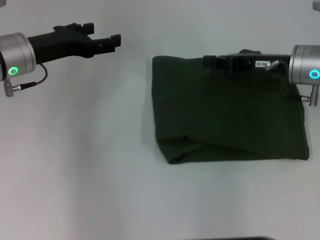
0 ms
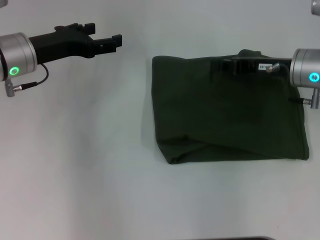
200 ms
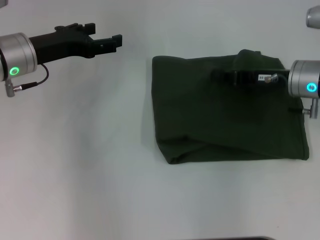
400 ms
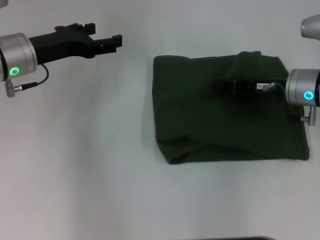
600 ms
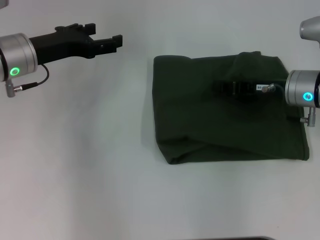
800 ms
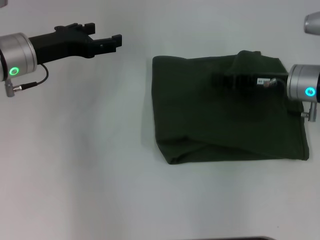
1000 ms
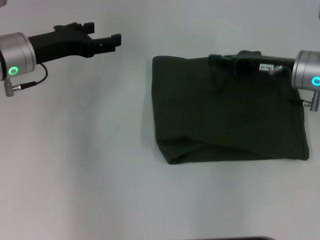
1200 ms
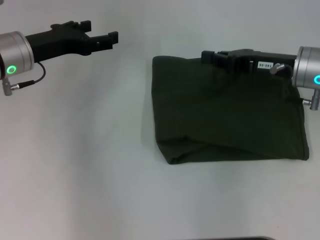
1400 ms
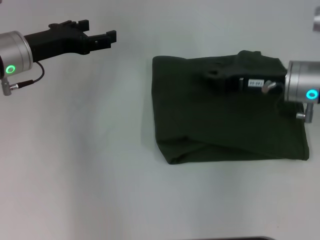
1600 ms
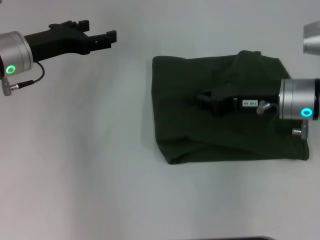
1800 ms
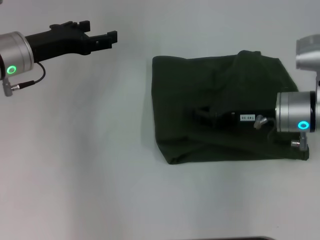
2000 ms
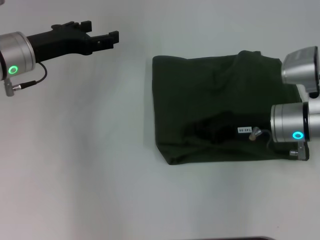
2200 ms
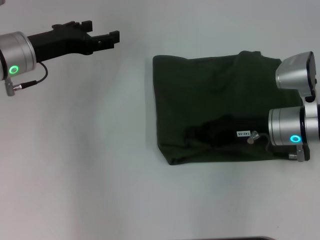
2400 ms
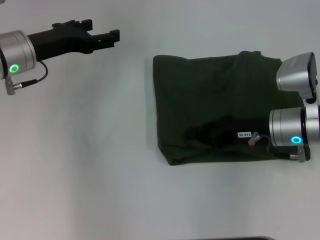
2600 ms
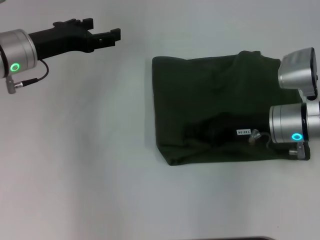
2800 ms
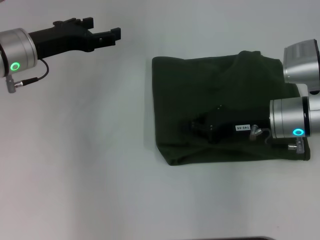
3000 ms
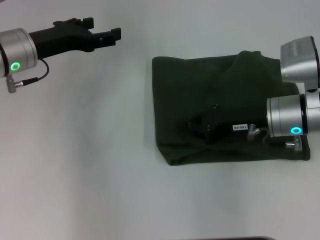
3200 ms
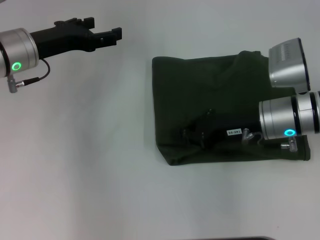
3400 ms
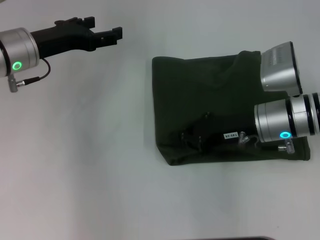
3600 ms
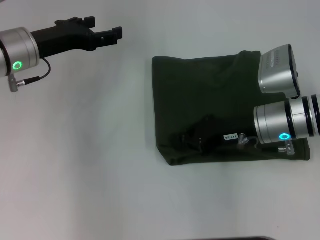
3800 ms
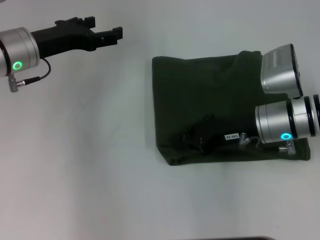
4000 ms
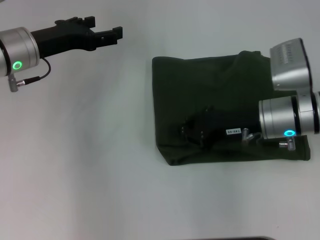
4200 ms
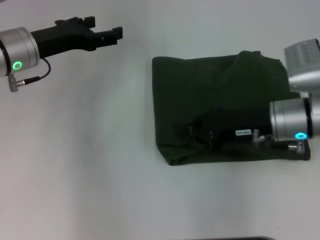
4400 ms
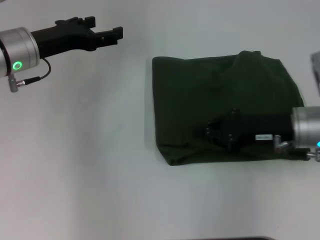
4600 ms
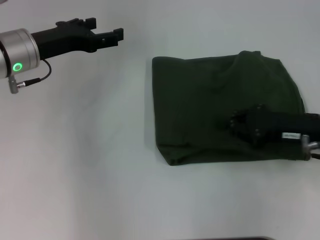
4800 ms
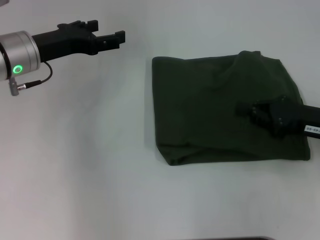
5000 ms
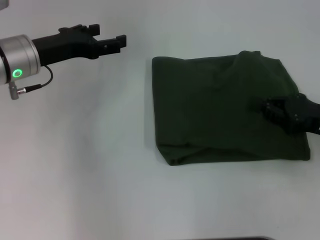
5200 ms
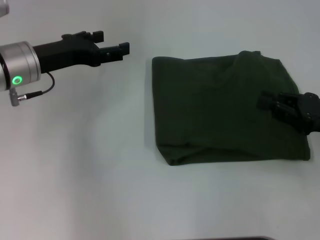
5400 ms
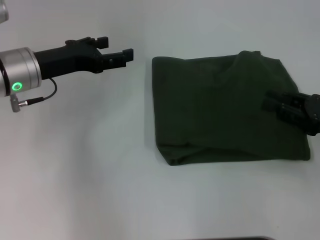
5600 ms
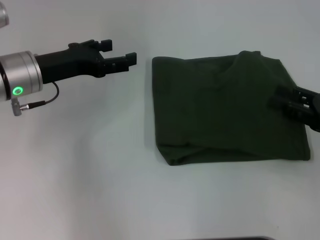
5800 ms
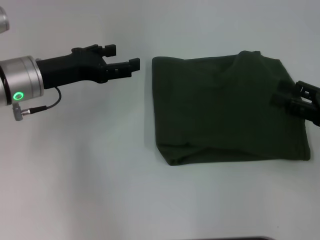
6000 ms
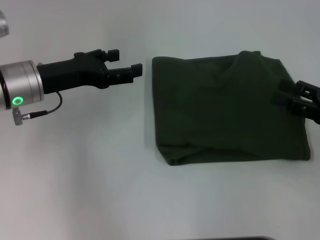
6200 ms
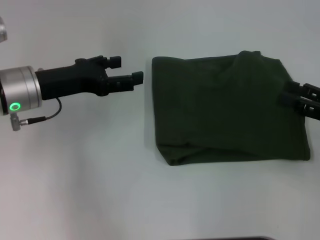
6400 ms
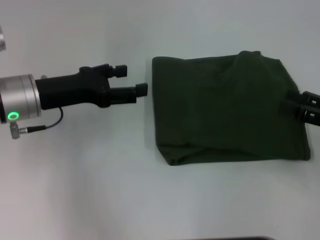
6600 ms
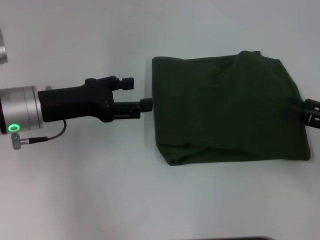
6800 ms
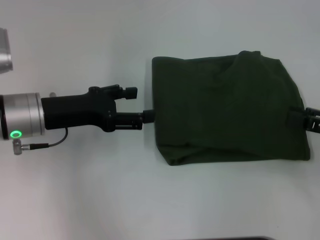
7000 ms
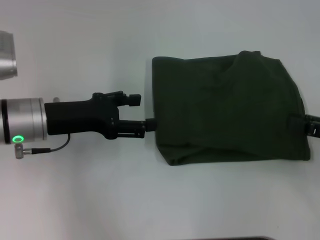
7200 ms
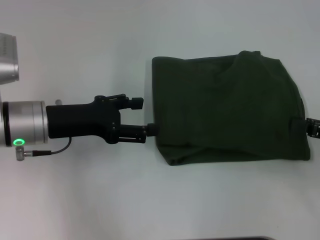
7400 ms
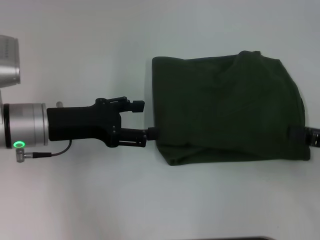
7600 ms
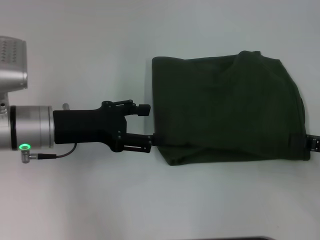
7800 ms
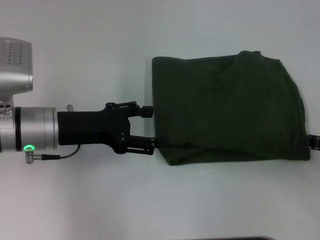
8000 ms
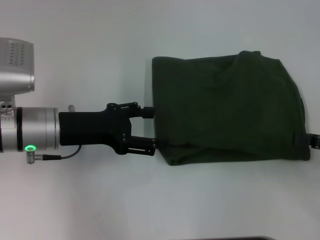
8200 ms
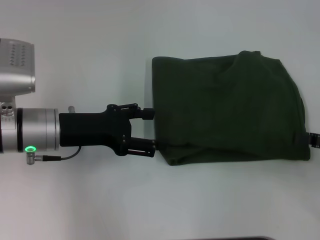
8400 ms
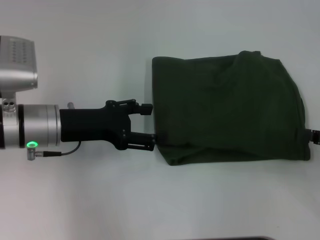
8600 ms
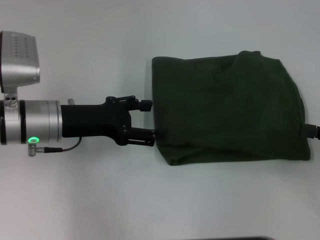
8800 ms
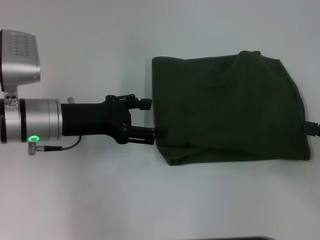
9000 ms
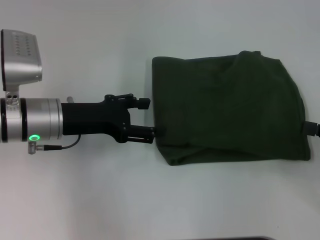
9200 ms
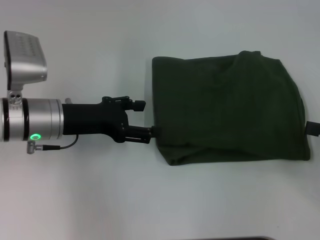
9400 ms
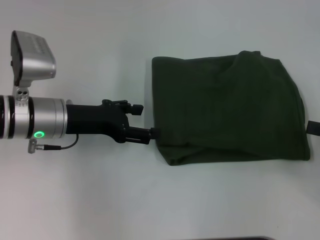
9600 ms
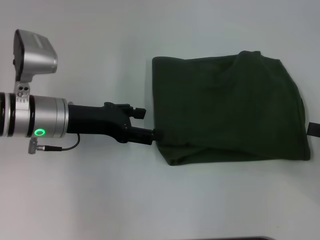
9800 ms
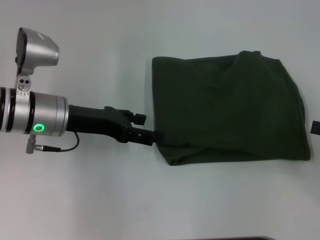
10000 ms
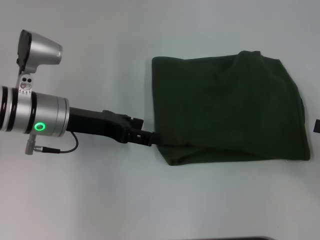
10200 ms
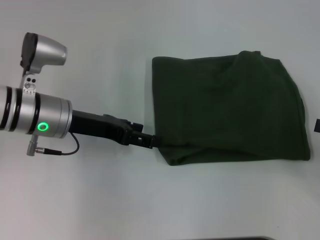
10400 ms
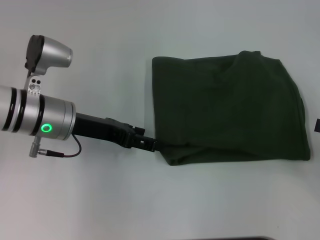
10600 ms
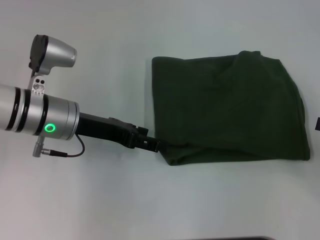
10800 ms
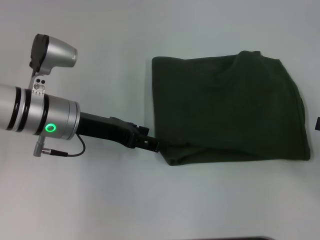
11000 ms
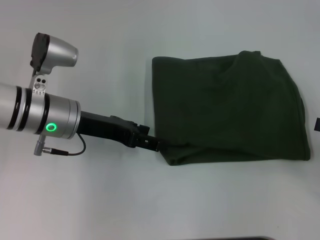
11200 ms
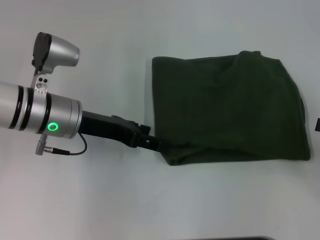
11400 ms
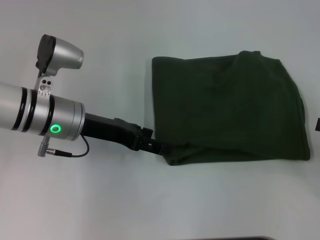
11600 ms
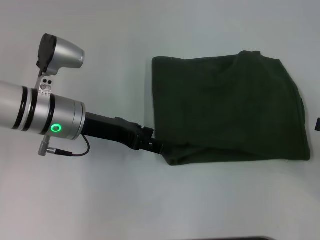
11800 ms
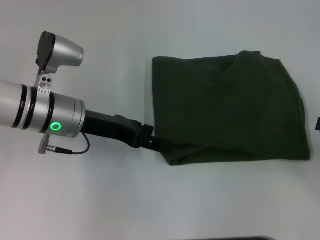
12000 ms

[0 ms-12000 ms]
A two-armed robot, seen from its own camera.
0 ms to 1600 ms: The grippers move only a little.
3000 ms to 4400 ms: There are only small adjustments of the grippers.
4400 ms to 6000 ms: The right gripper goes roughly 15 cm to the right and backward, and opens up.
6000 ms to 7600 ms: The left gripper changes place by some 5 cm.
7600 ms to 9000 ms: The grippers stay close to where they were, moving slightly.
10400 ms to 12000 ms: There are only small adjustments of the grippers.

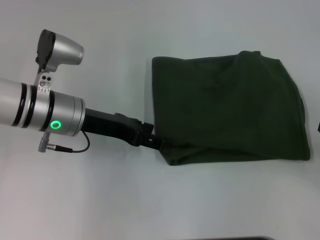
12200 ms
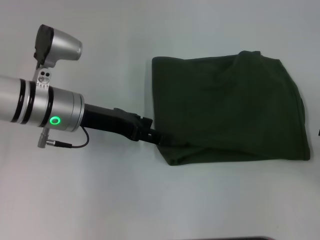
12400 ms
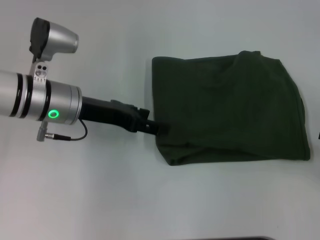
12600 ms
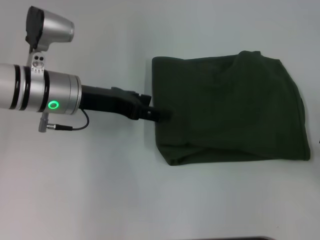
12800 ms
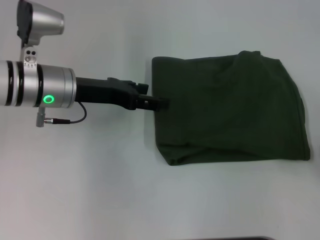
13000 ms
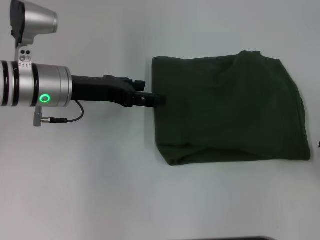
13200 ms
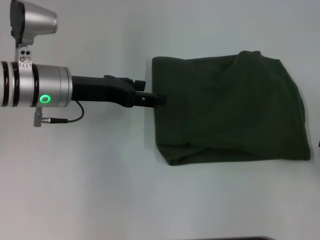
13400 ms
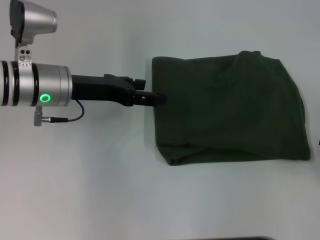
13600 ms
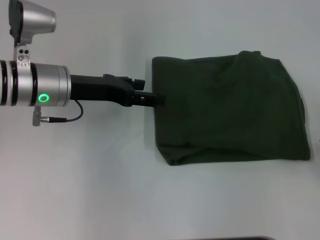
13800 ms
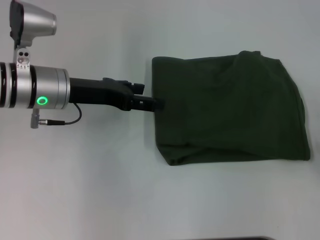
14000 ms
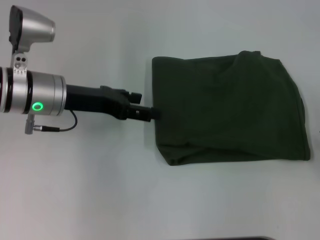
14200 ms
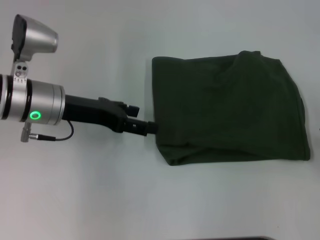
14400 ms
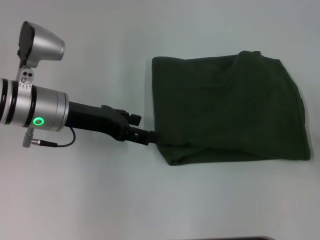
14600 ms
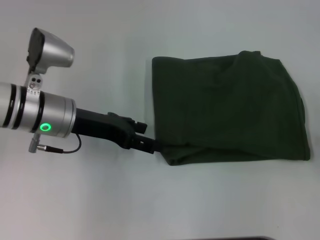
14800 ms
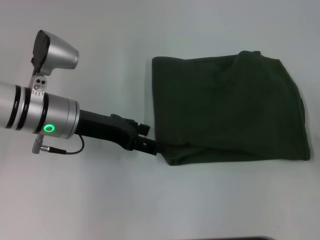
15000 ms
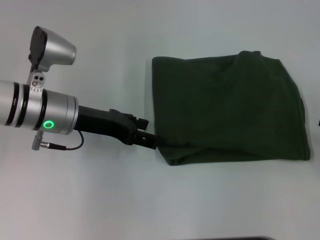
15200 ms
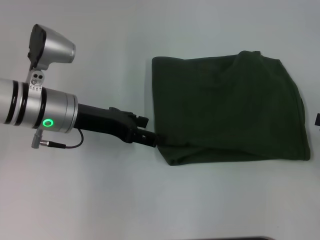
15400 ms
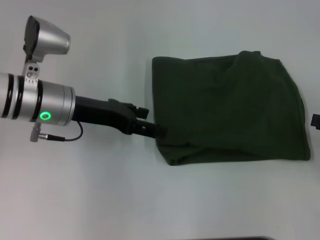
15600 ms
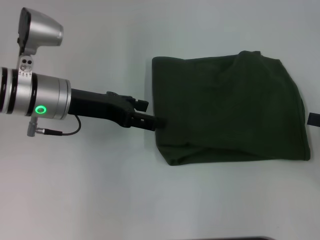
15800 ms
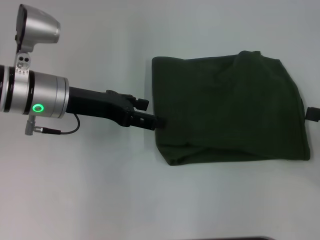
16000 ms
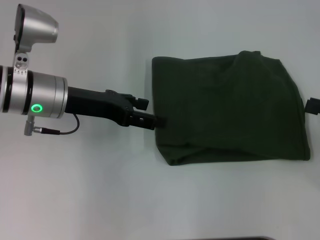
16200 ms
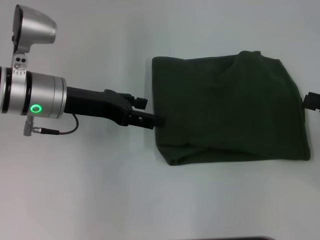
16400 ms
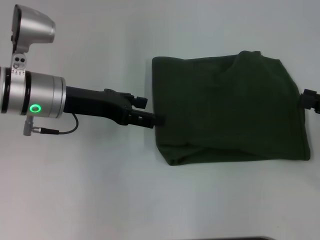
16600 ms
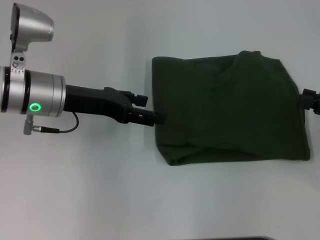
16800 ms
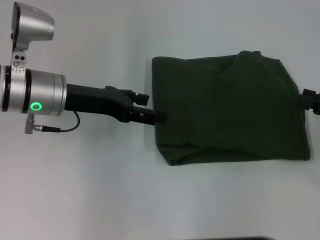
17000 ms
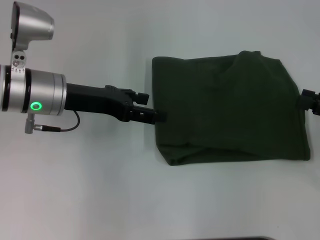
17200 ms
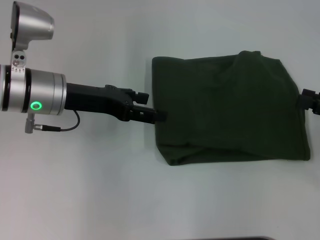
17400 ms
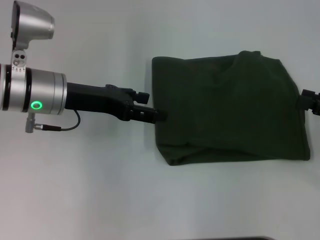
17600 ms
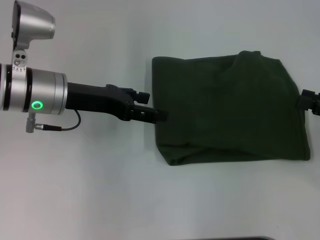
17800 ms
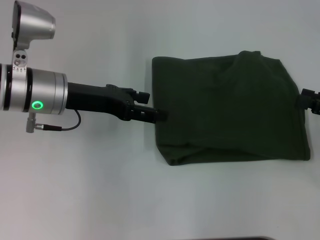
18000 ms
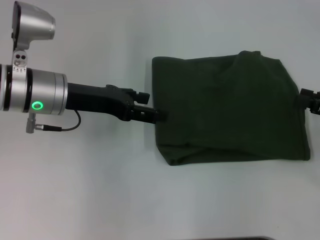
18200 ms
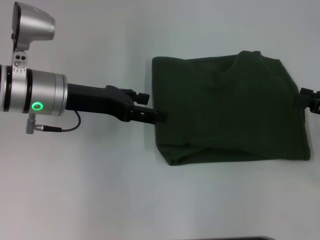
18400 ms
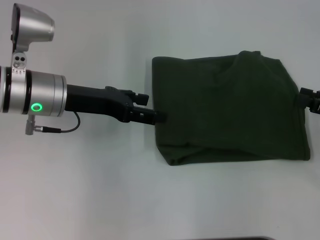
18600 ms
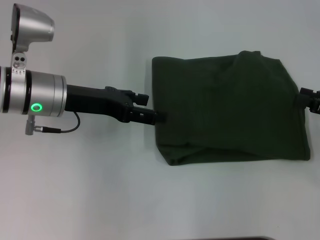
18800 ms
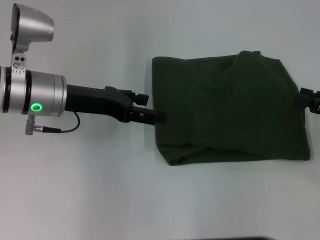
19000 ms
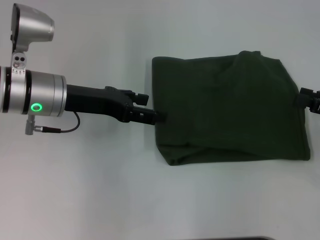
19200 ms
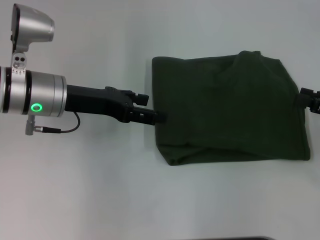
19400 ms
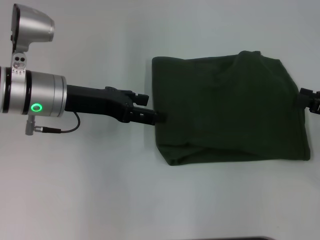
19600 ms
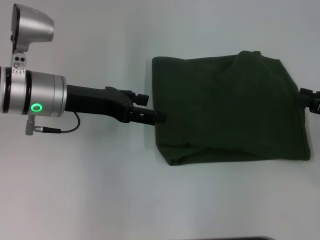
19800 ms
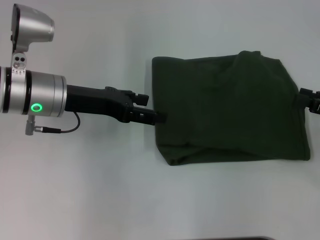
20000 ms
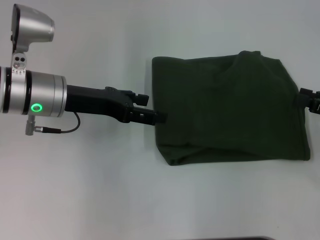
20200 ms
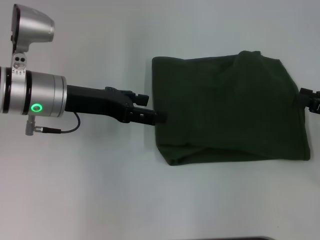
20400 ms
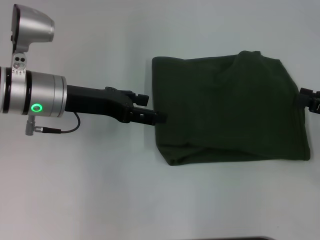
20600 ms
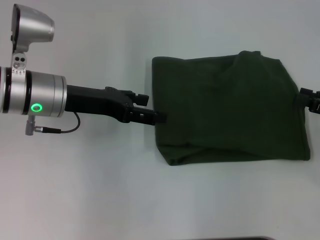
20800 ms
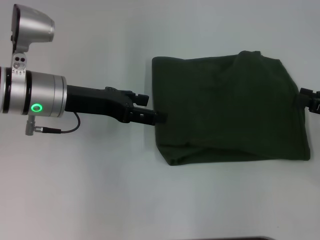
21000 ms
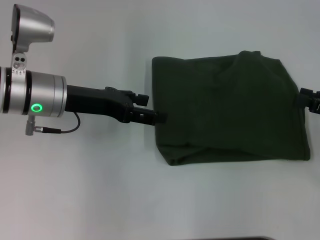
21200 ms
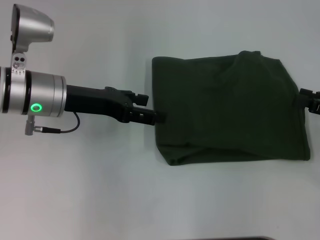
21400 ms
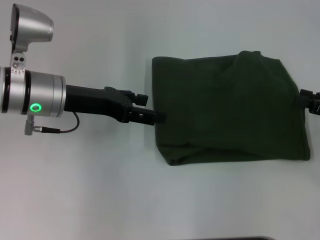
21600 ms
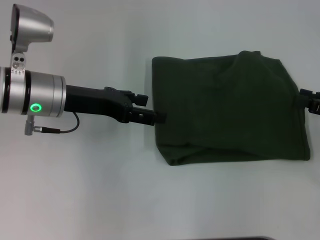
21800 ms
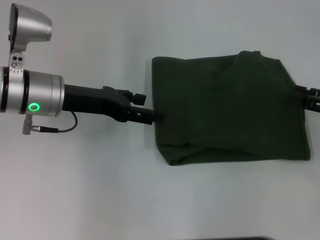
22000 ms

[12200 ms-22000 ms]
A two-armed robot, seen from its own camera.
12200 ms to 15000 ms: There are only small adjustments of the grippers.
16400 ms to 20600 ms: Both grippers stay about where they are.
20600 ms to 22000 ms: The two grippers keep their place.

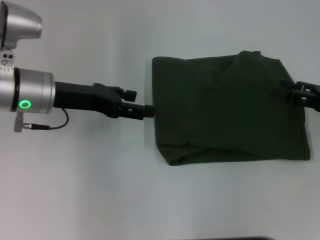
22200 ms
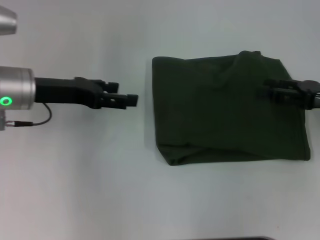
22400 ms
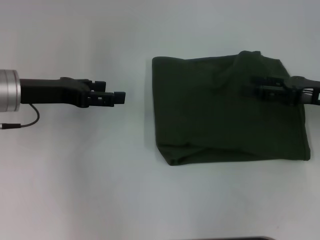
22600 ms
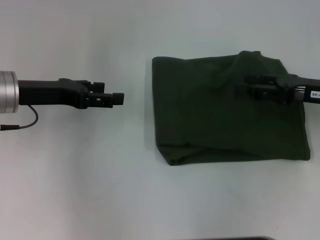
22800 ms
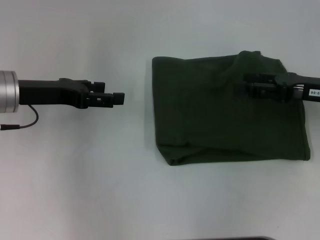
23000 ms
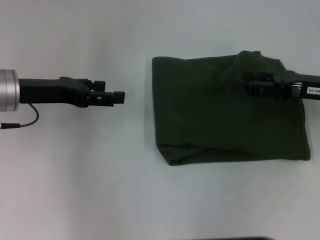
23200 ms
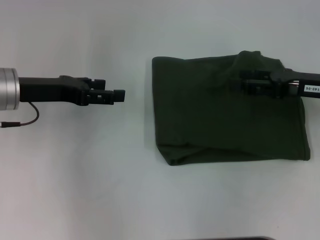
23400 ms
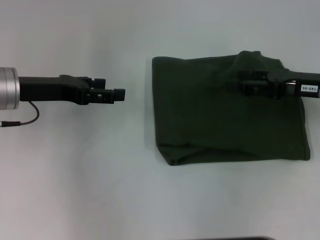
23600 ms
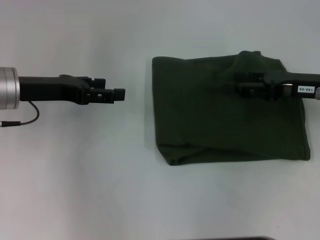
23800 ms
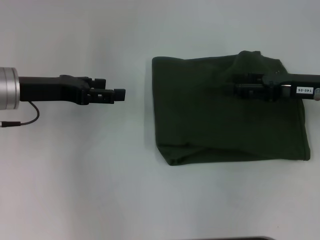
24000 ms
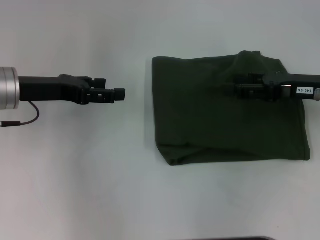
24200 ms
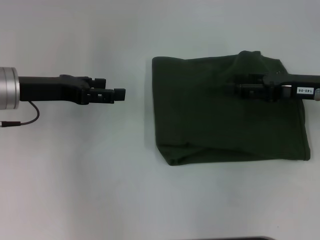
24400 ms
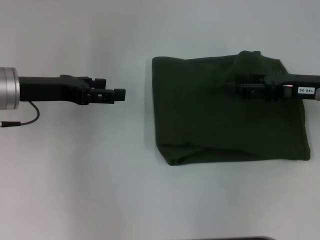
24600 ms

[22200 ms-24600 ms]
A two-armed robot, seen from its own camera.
22200 ms to 23400 ms: The right gripper shifts by about 5 cm.
23400 ms to 24600 ms: The two grippers keep their place.
